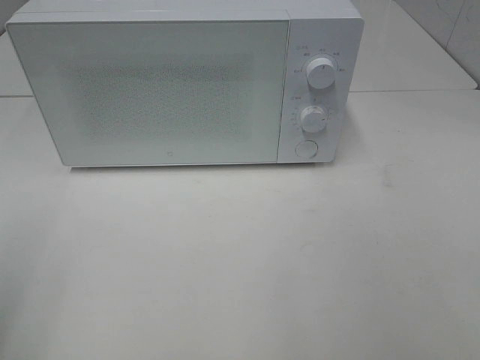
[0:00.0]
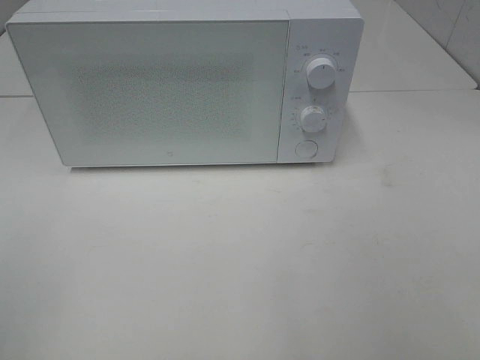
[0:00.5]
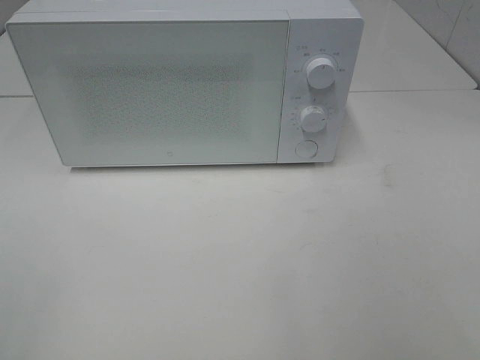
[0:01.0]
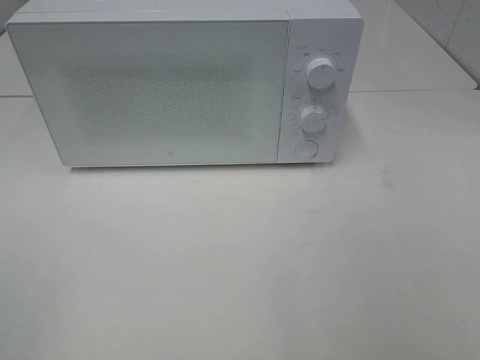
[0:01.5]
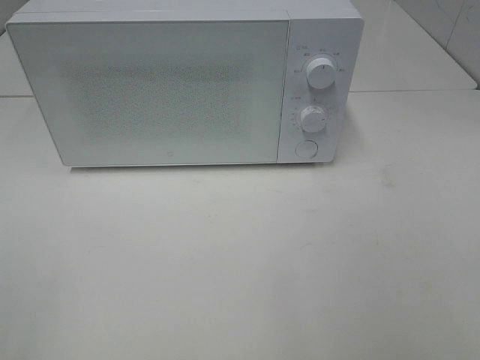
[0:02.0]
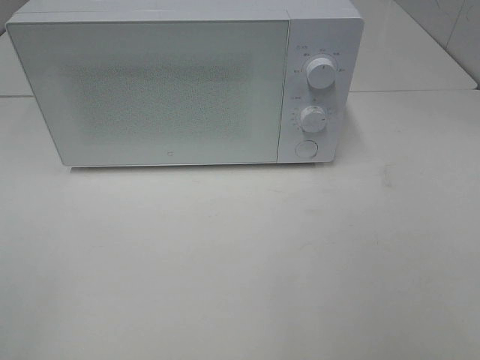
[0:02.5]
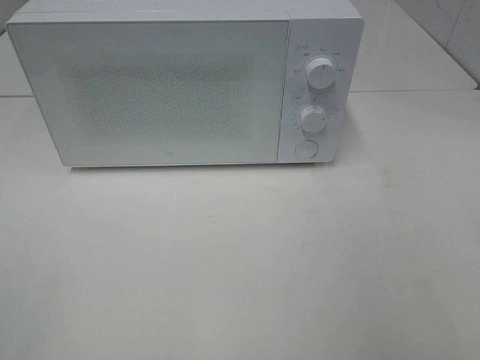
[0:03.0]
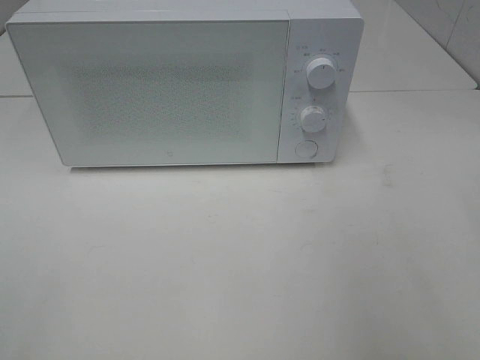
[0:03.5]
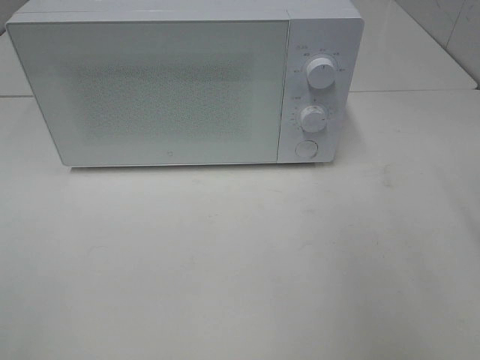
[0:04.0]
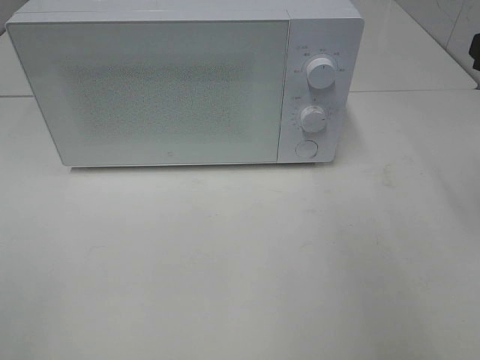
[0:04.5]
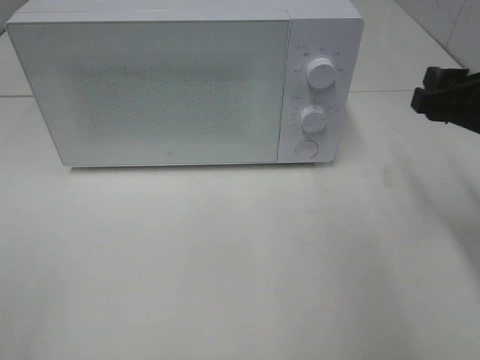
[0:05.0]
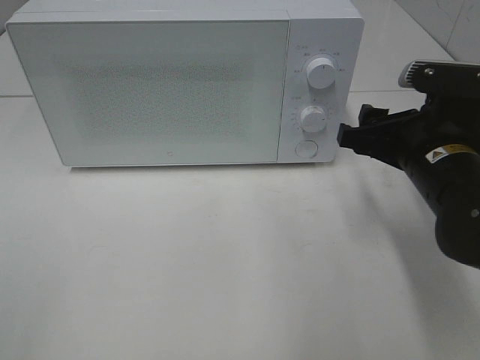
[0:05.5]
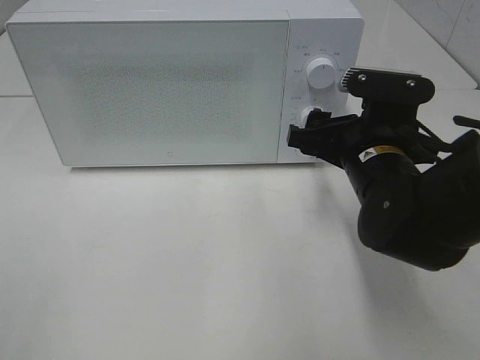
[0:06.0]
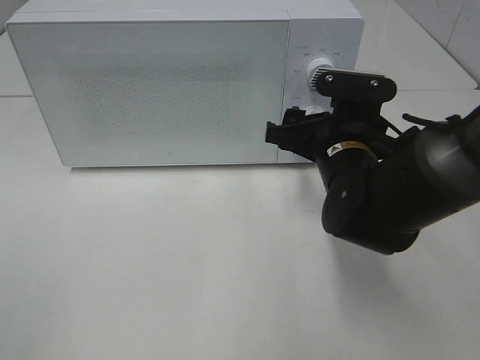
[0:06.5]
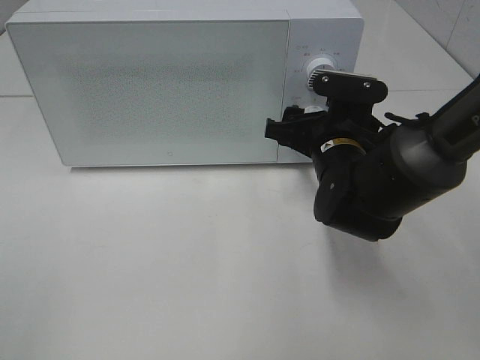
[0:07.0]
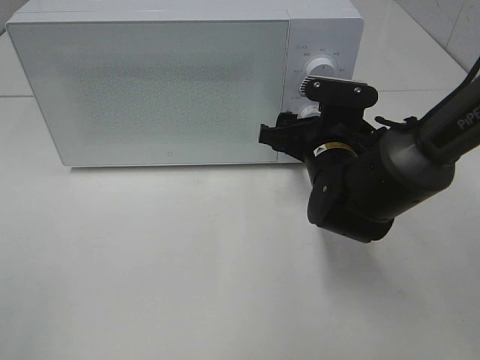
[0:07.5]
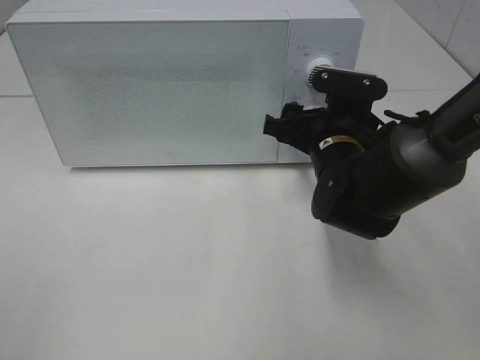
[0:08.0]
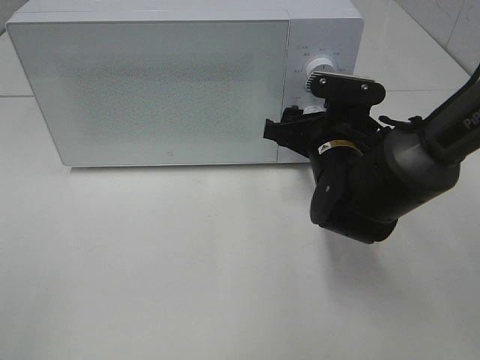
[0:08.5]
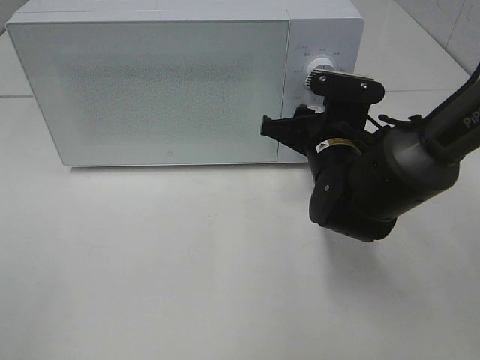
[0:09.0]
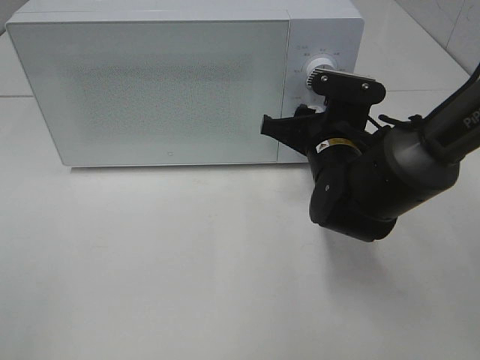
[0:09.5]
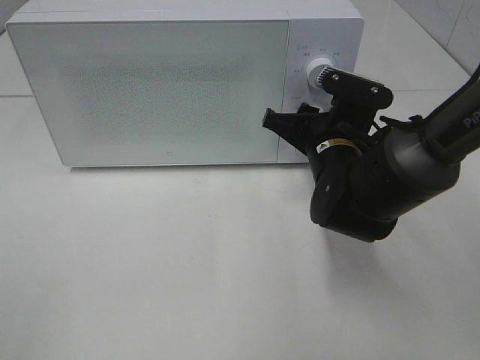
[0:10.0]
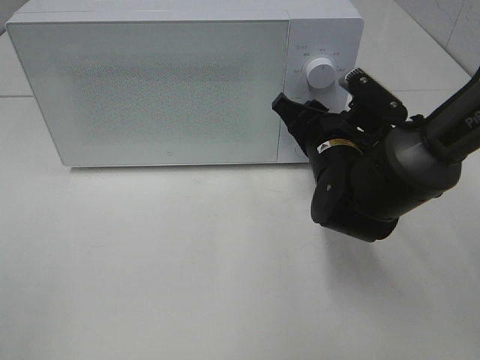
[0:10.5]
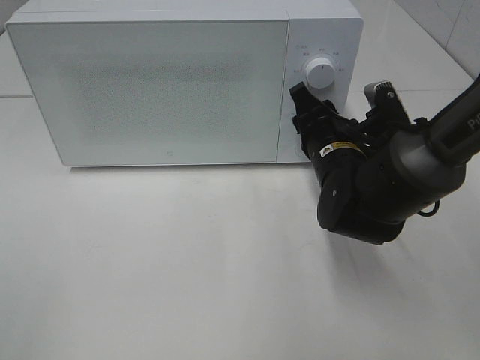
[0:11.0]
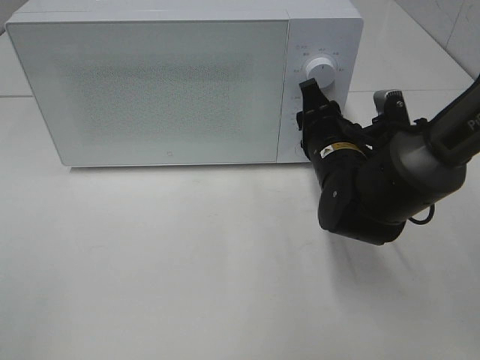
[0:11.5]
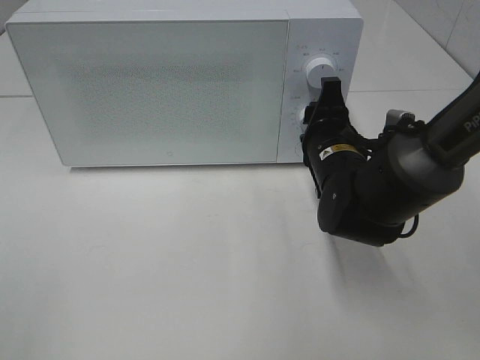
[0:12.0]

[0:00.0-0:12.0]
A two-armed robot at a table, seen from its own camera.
Task of the whole recording: Heat the burger.
0:04.0 to 0:06.0: The right gripper moves to the left, downward and forward, about 20 cm.
0:06.0 to 0:08.0: The right gripper changes place by roughly 5 cm.
0:08.0 to 0:10.0: The right gripper closes up.

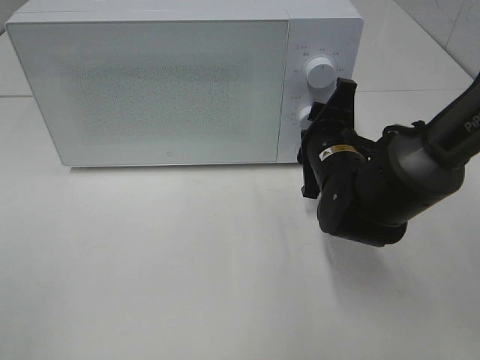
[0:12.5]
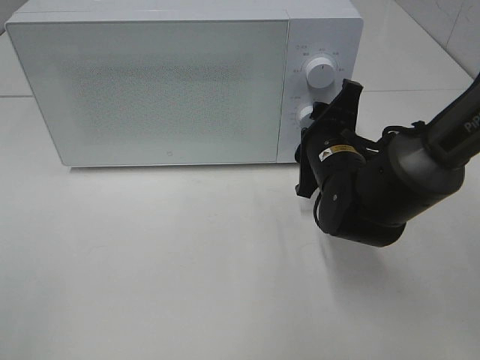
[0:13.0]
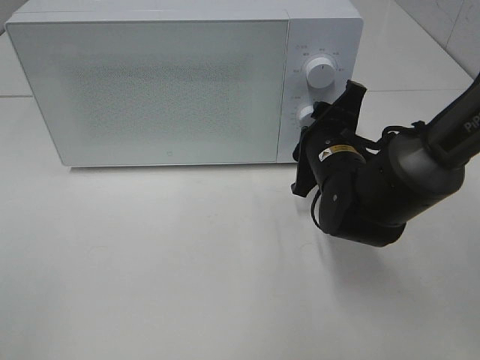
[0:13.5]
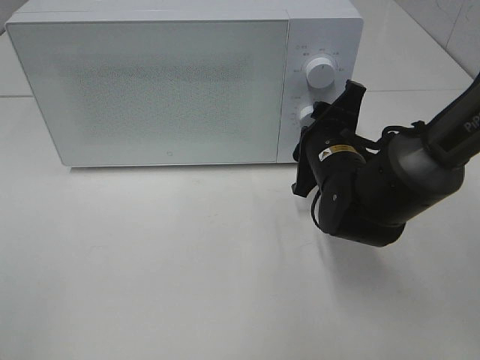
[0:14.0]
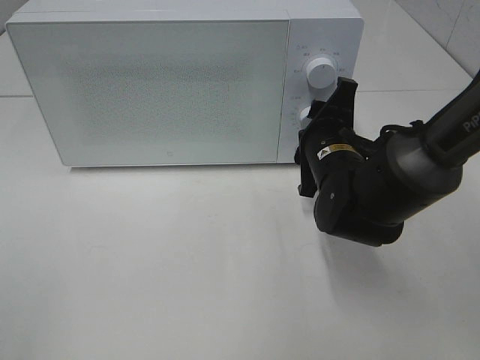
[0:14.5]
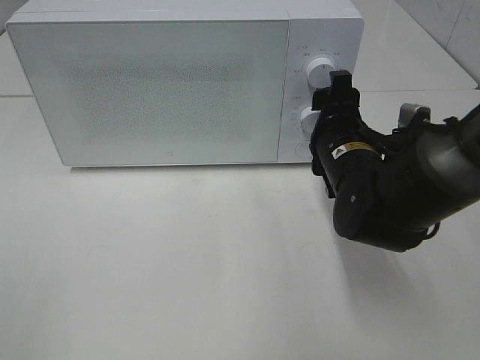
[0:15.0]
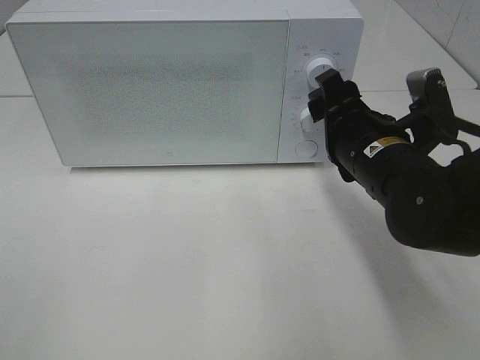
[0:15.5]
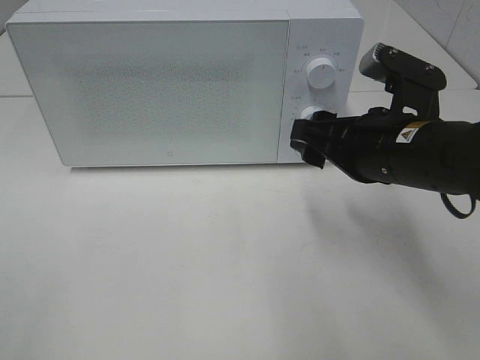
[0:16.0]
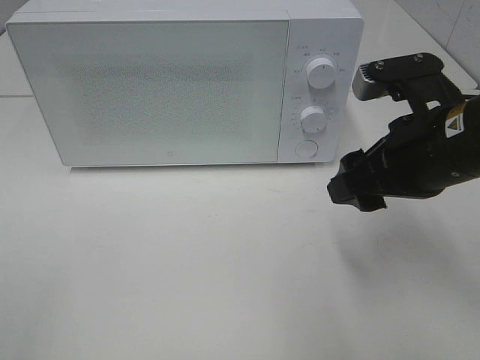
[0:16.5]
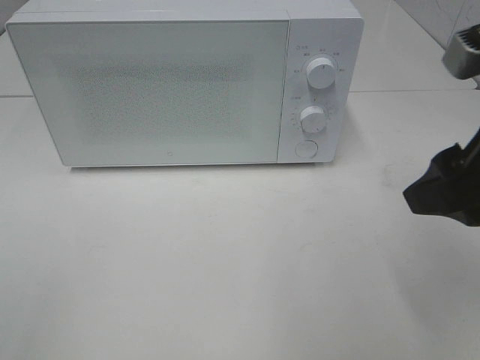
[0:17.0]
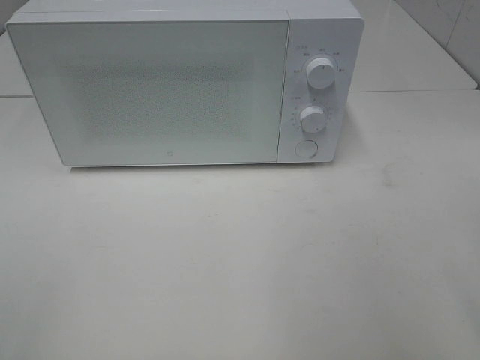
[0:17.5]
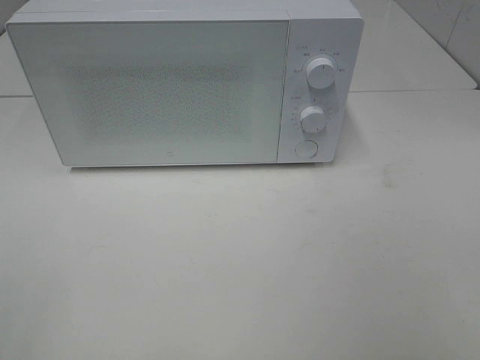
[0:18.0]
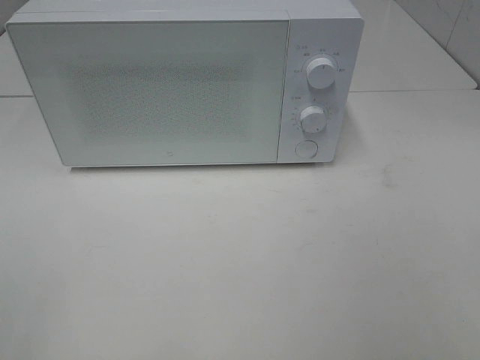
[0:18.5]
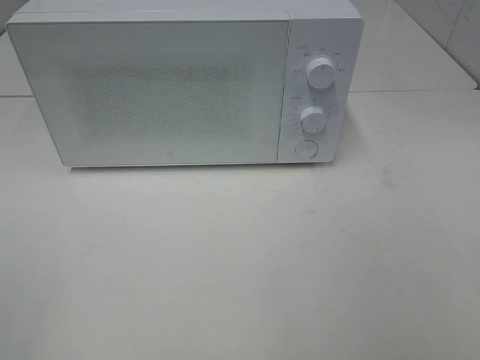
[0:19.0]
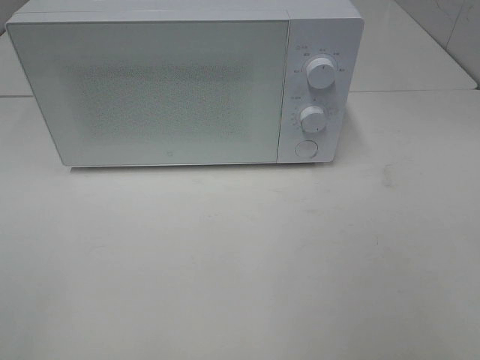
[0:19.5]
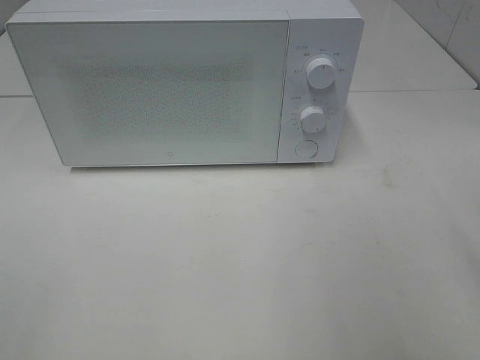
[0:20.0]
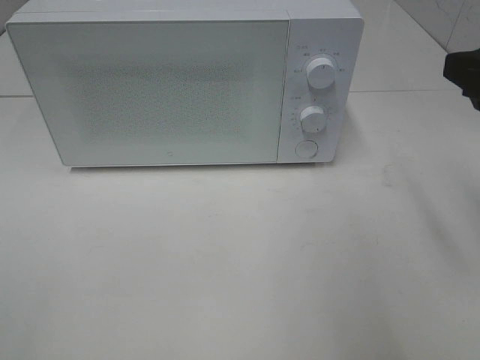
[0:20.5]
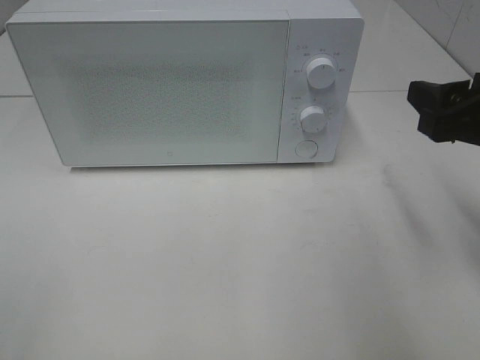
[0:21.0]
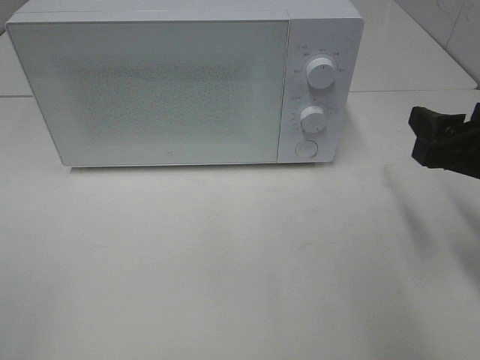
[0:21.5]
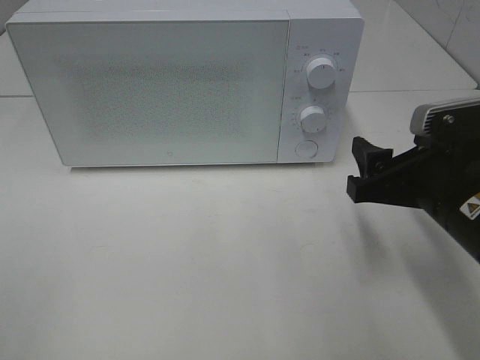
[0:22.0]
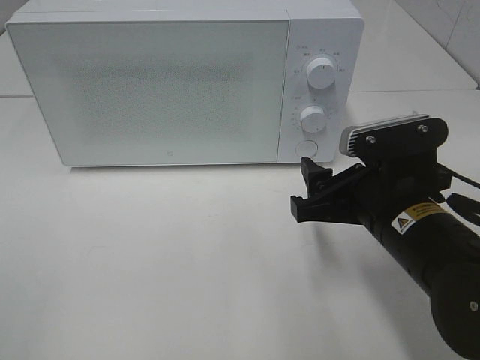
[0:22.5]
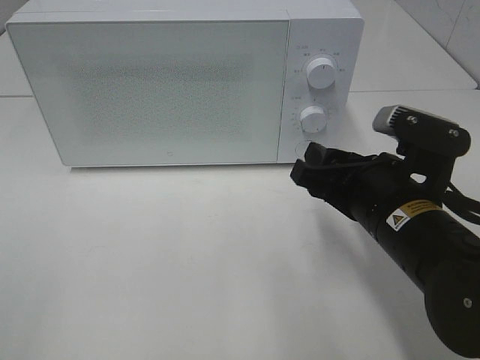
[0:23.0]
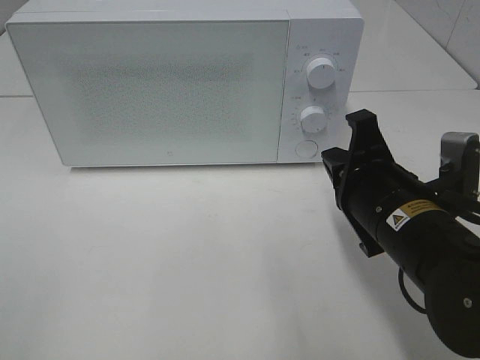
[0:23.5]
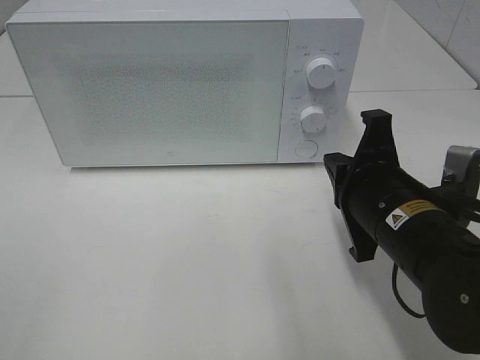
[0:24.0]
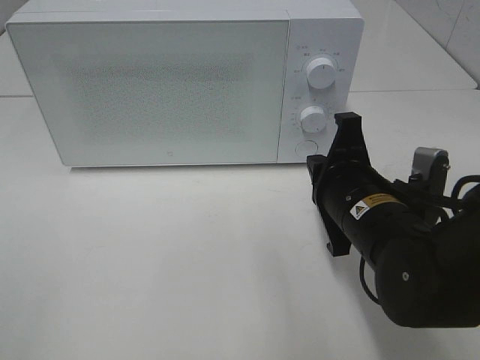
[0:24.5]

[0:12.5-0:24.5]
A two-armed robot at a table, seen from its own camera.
Task of the whole recording: Heat the burger.
Step, 0:12.5 to 0:14.5: Right hand: twist timer button.
0:12.5 to 0:14.5: The grippers move only a little.
0:14.5 to 0:16.5: The right gripper heads upward and backward, covering approximately 15 cm.
0:16.5 to 0:18.5: The right gripper shifts about 25 cm backward and to the right.
0:18.5 to 0:20.5: The right gripper heads forward, covering approximately 20 cm.
0:20.5 to 0:22.5: The right gripper moves downward and to the left, about 15 cm.
0:22.5 to 0:24.5: The right gripper closes up.

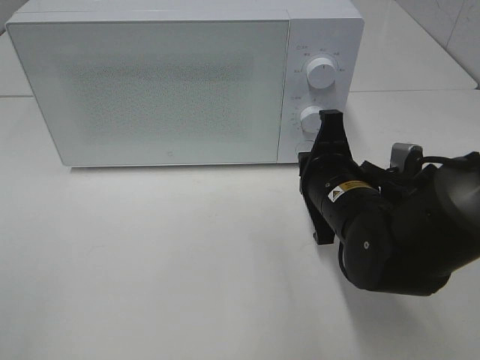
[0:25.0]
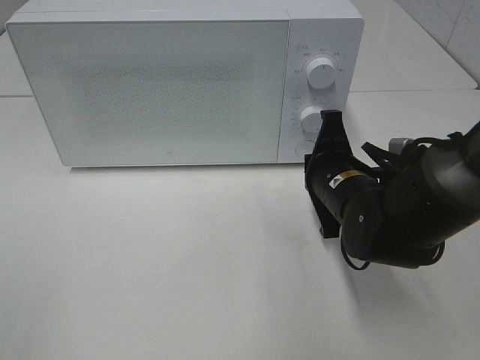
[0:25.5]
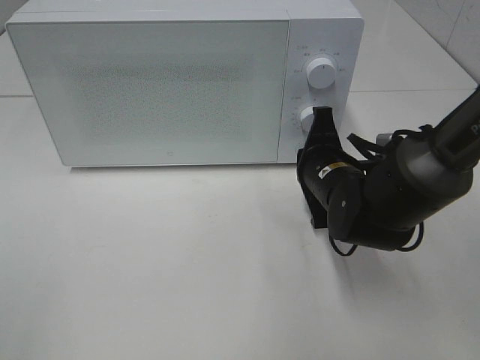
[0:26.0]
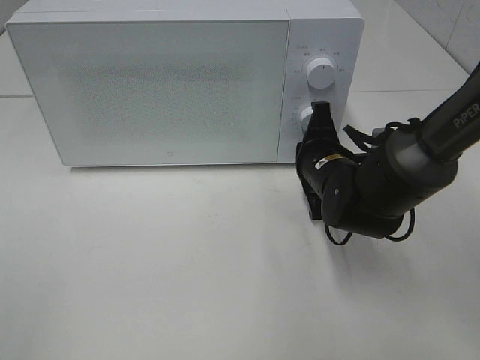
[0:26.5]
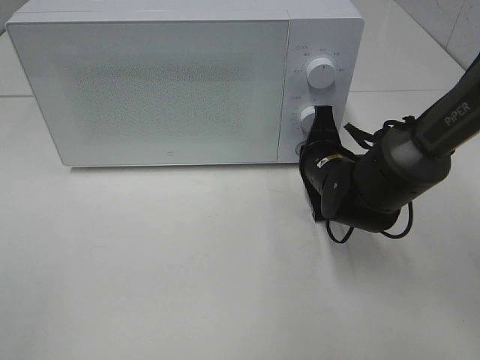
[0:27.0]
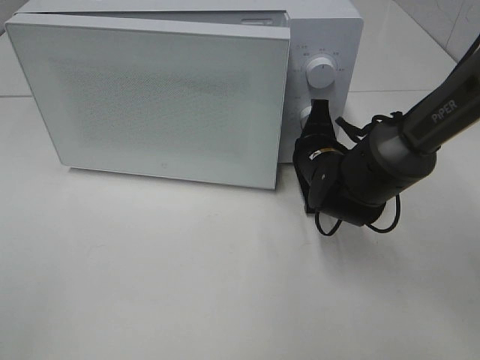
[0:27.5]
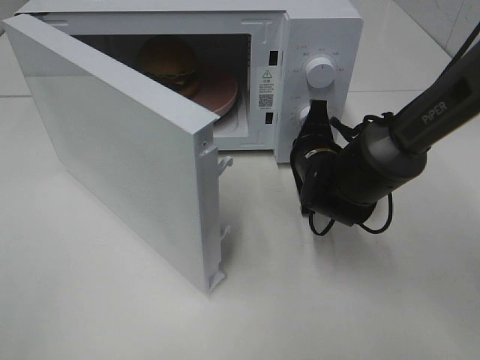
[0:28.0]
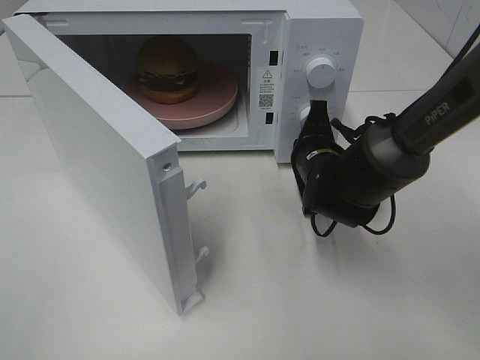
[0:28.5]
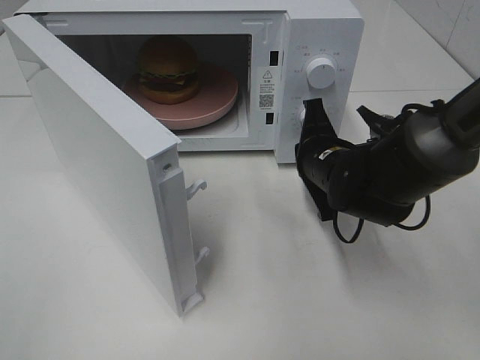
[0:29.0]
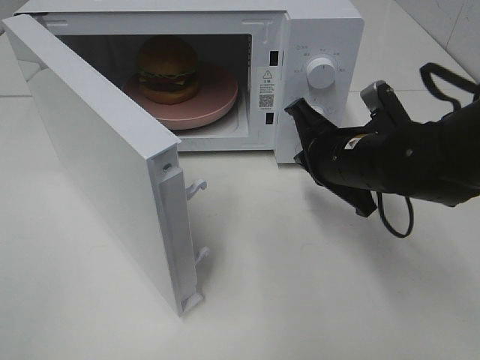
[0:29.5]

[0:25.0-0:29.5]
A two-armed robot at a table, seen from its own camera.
Task of the whole recording: Heat the burger.
Step, 0:25.0 to 0:29.0: Right hand: press the switch.
0:25.0 to 0:27.0: The right gripper heads forward, covering roughly 10 cm.
0:27.0 to 0:29.5: The right gripper heads upward, covering about 5 cm.
